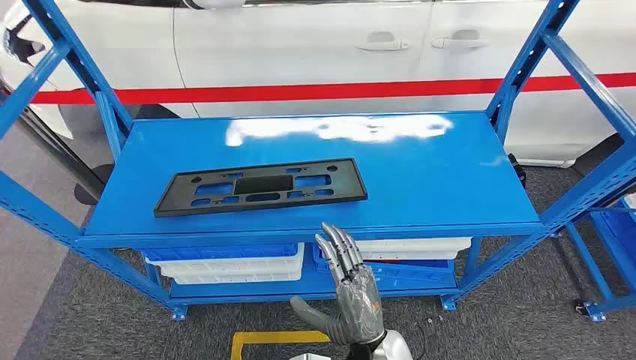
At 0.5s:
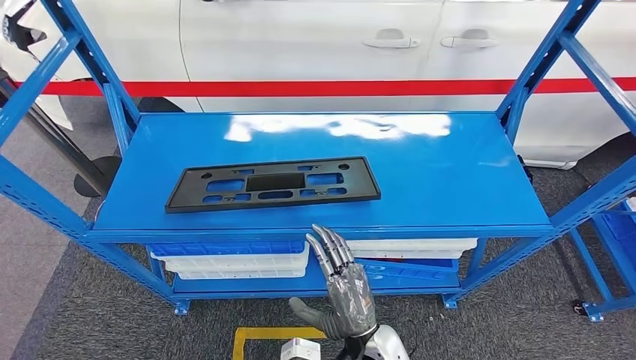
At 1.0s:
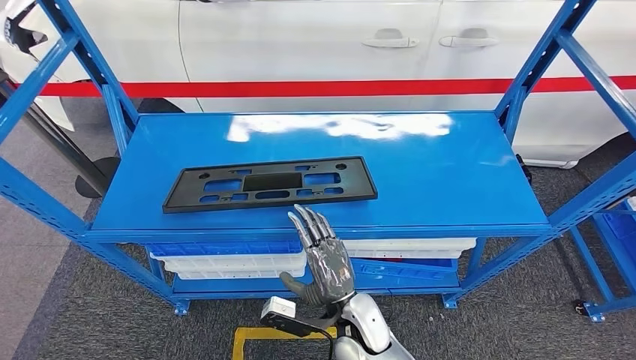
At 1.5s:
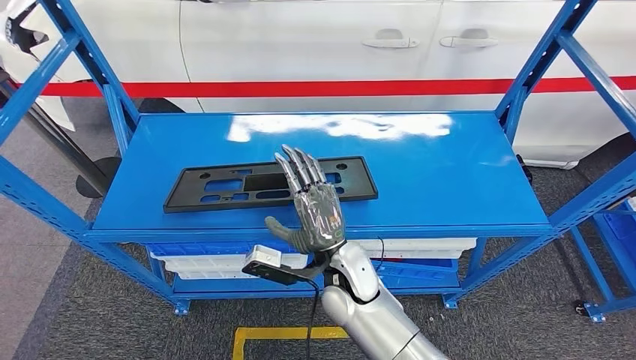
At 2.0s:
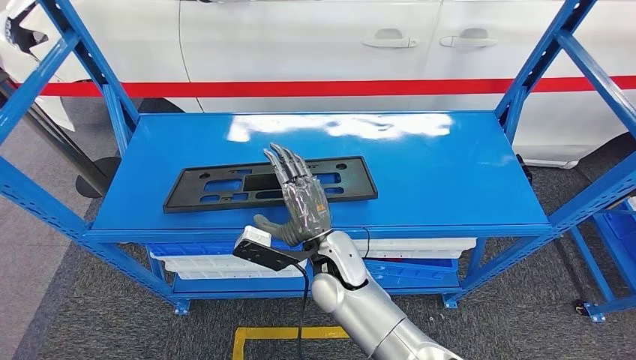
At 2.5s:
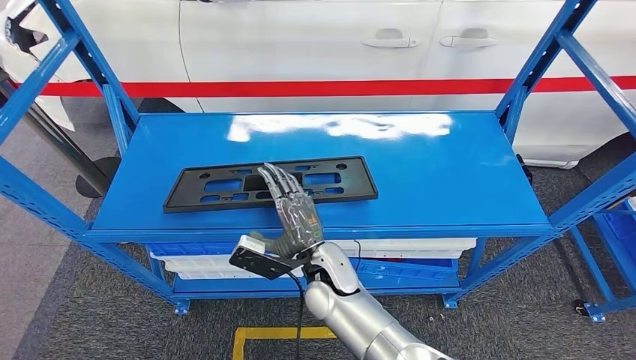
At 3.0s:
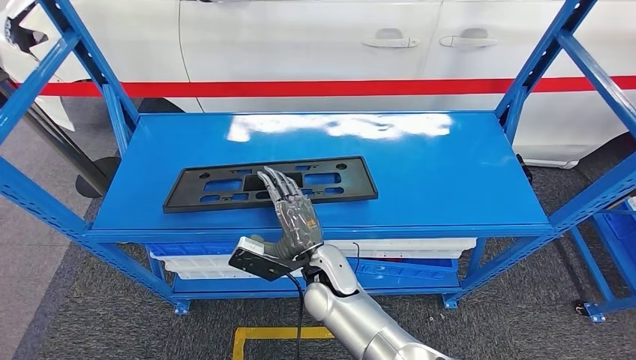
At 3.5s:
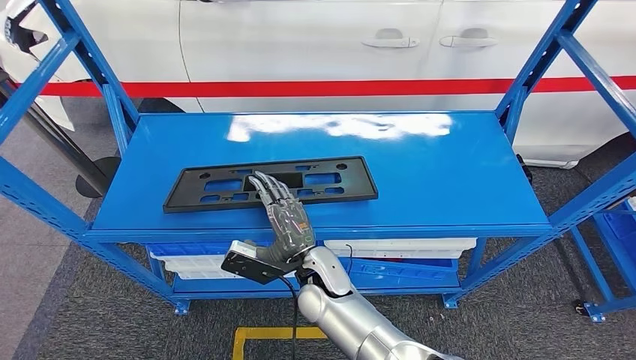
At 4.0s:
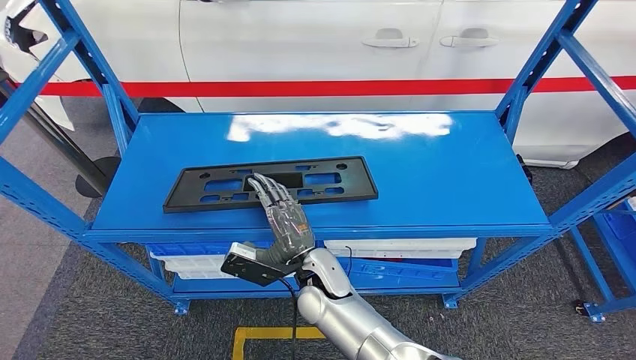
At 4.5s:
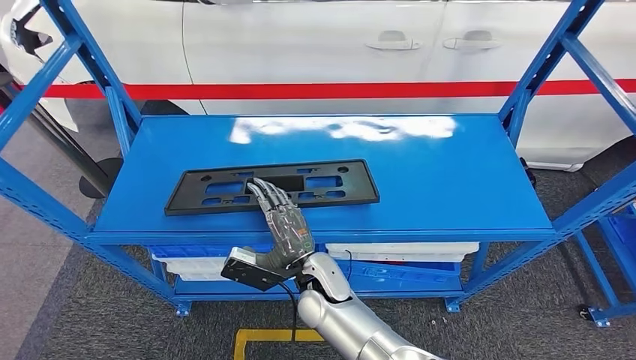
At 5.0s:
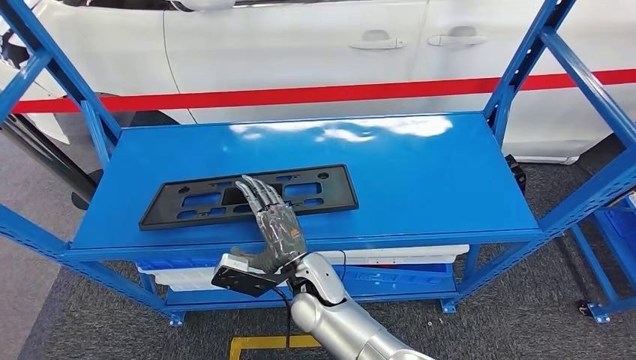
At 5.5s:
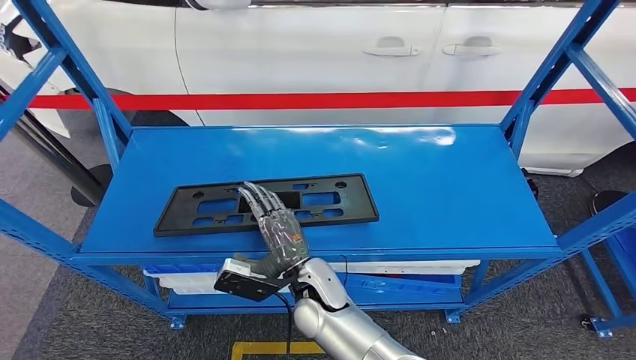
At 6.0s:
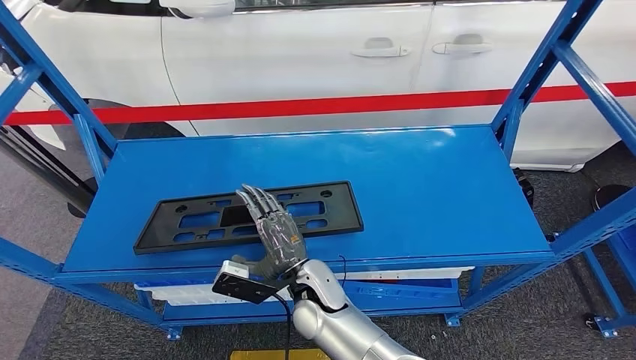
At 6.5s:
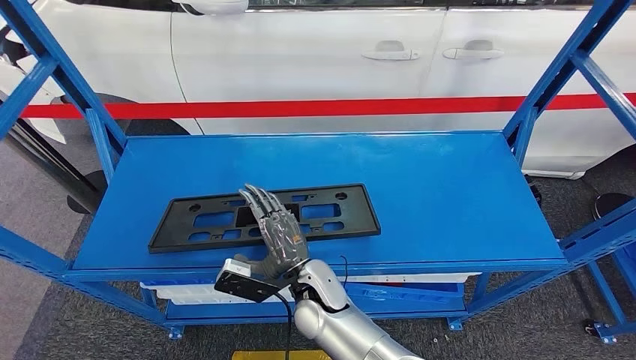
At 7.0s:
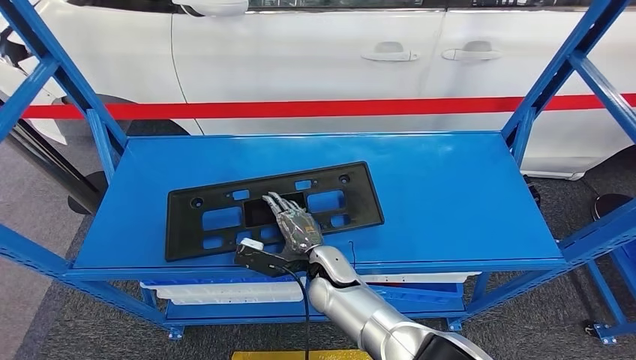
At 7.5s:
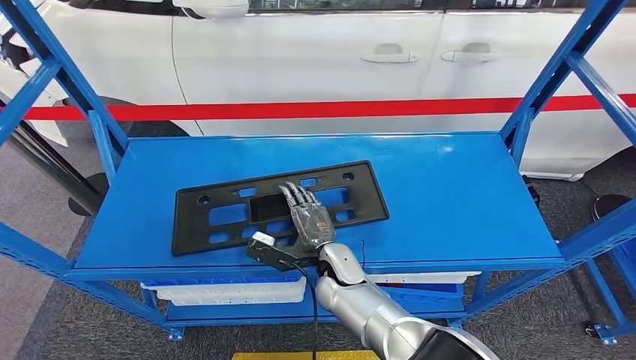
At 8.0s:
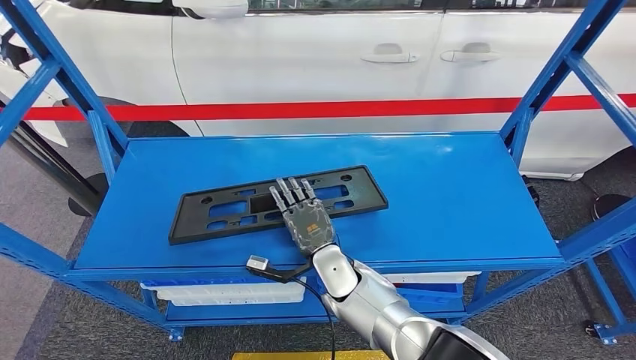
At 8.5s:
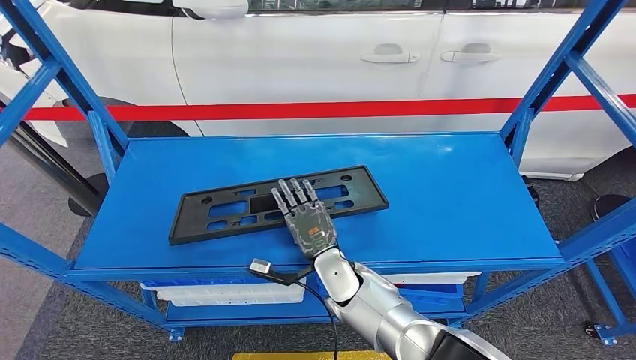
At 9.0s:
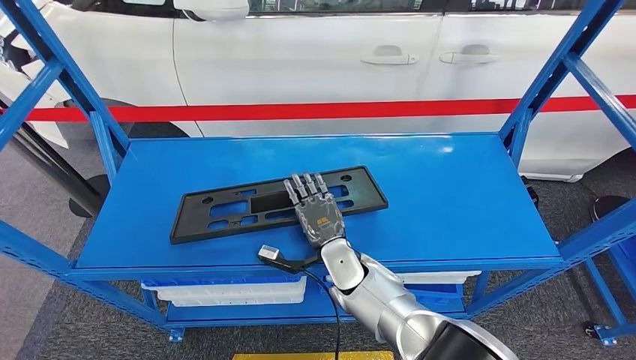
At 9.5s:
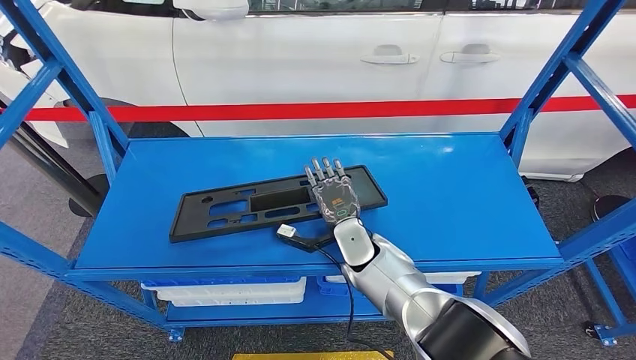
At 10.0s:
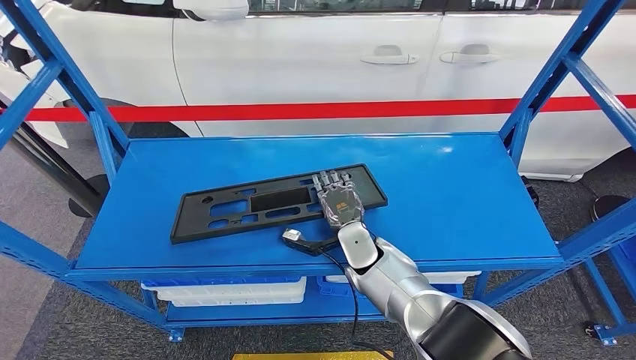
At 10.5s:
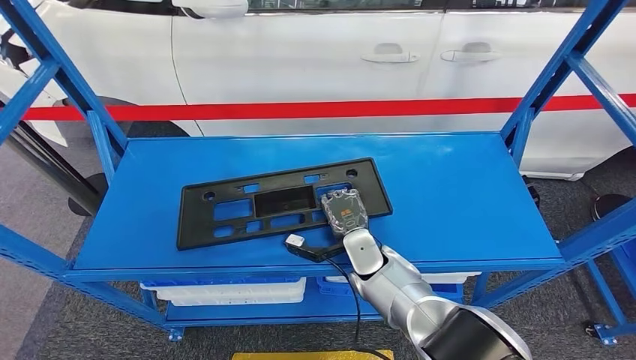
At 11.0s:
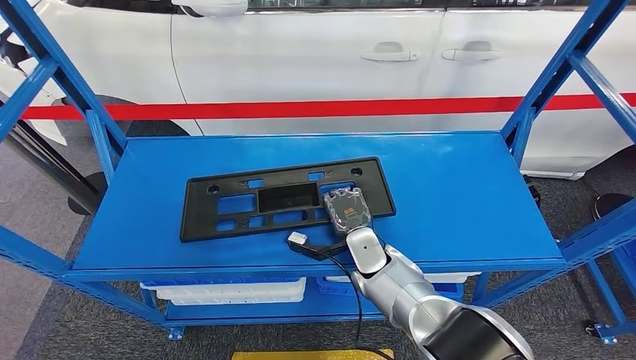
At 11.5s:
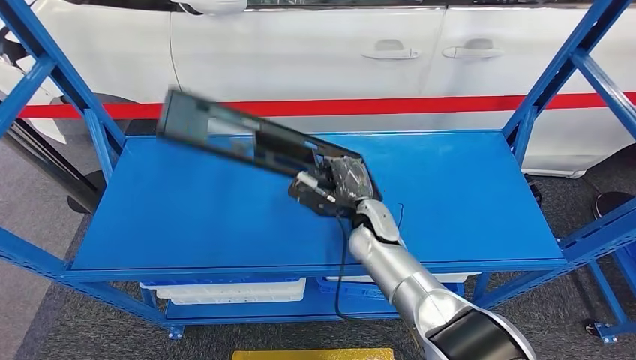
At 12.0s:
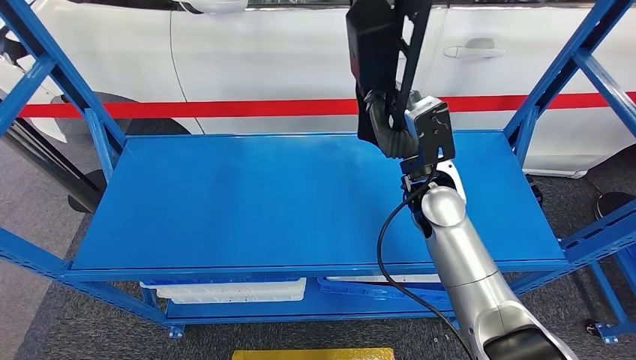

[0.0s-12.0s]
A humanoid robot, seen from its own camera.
2.0s to 4.0s: There are only small adjustments of the hands.
8.0s to 10.0s: The right hand goes roughly 5 cm to the right.

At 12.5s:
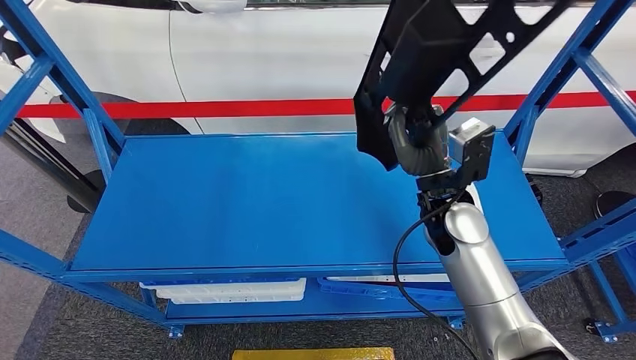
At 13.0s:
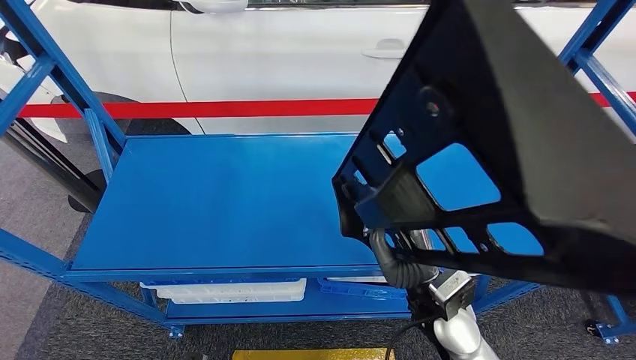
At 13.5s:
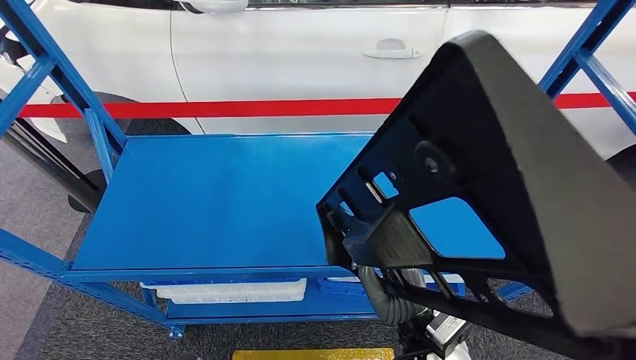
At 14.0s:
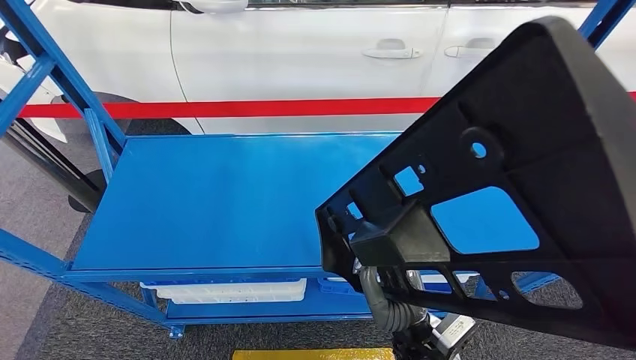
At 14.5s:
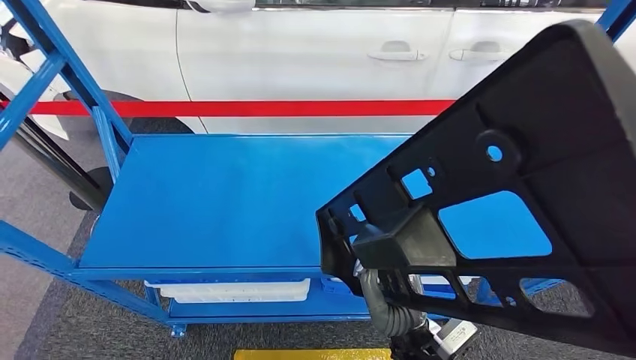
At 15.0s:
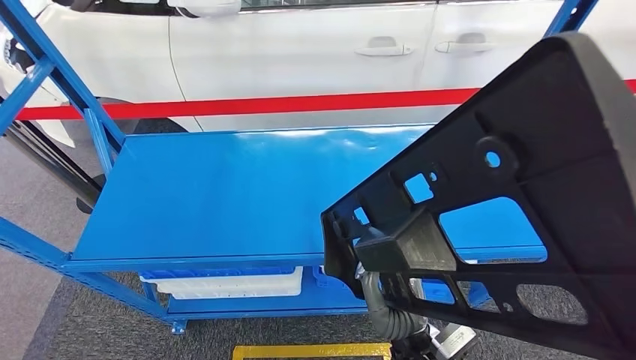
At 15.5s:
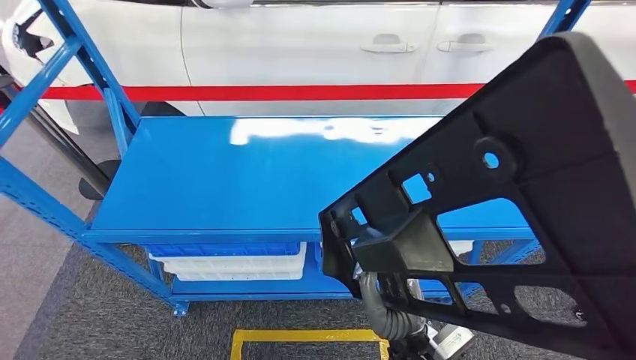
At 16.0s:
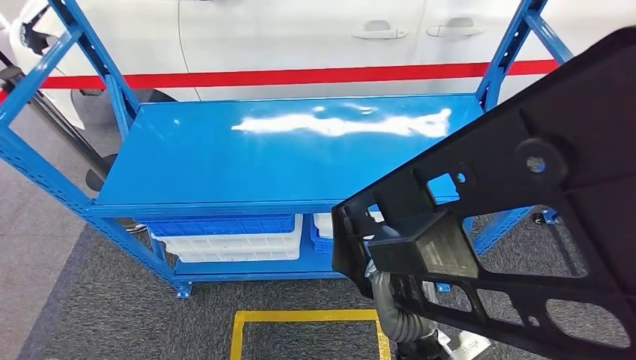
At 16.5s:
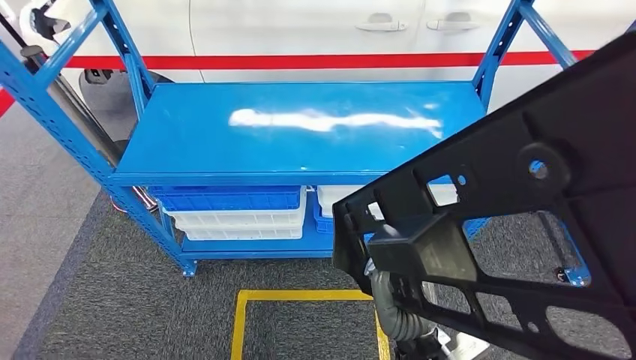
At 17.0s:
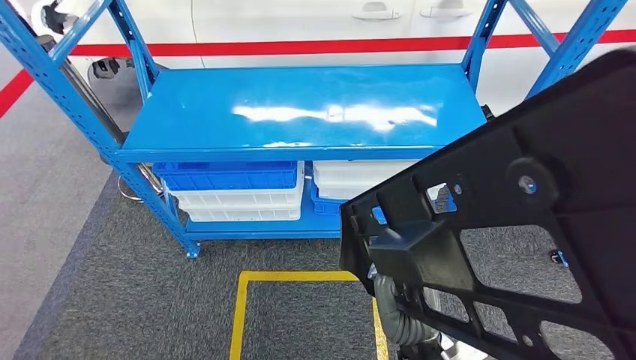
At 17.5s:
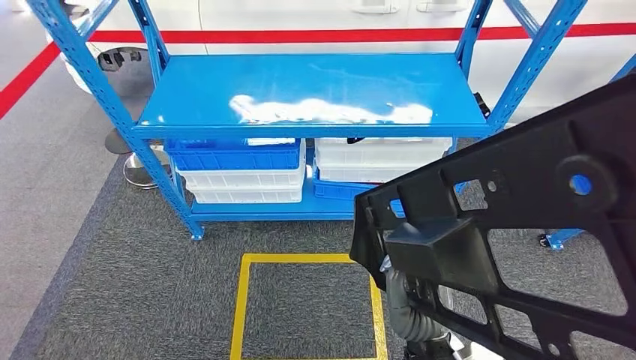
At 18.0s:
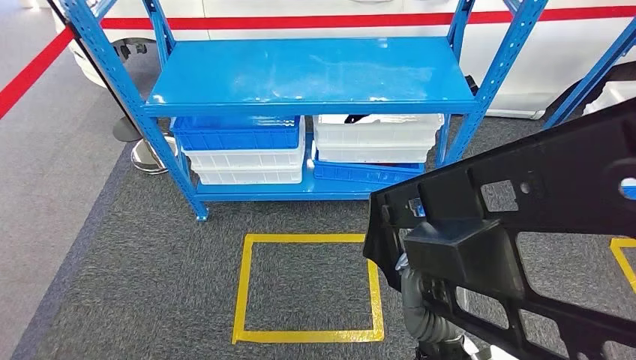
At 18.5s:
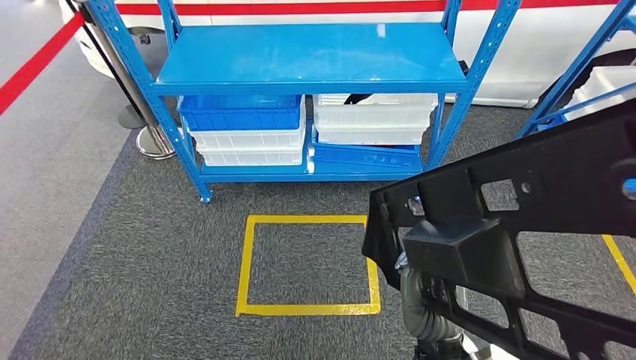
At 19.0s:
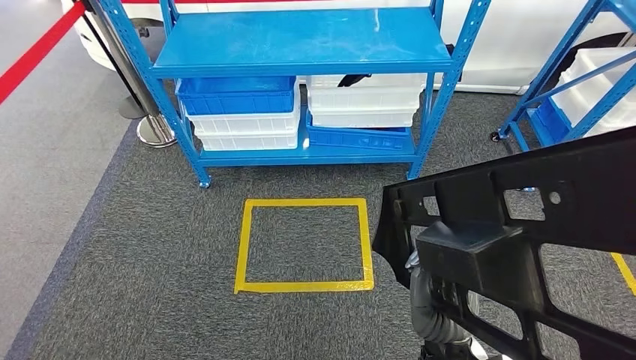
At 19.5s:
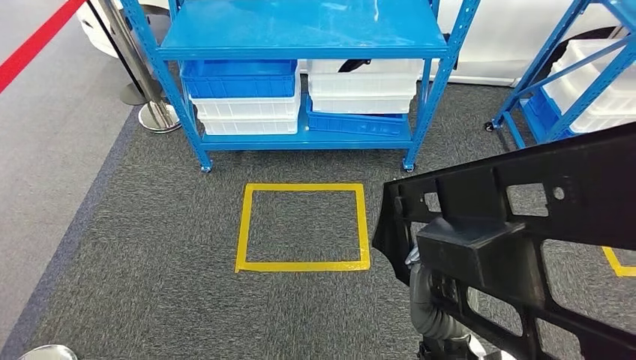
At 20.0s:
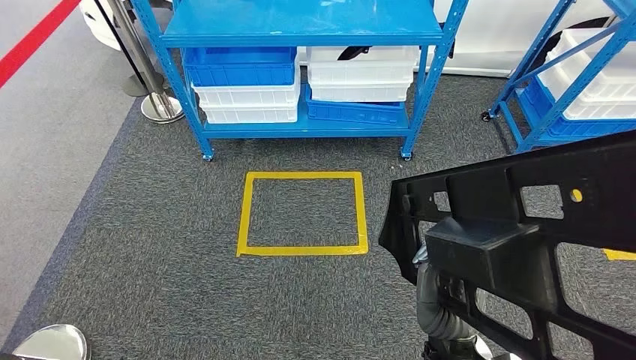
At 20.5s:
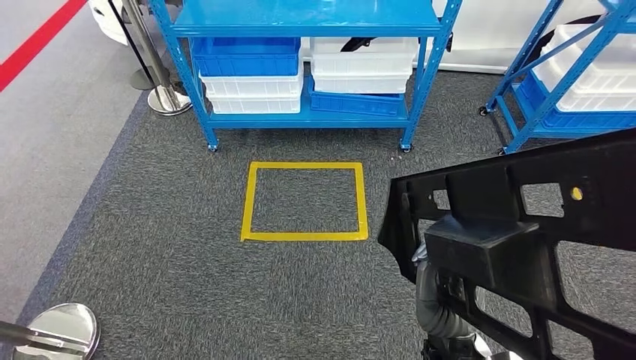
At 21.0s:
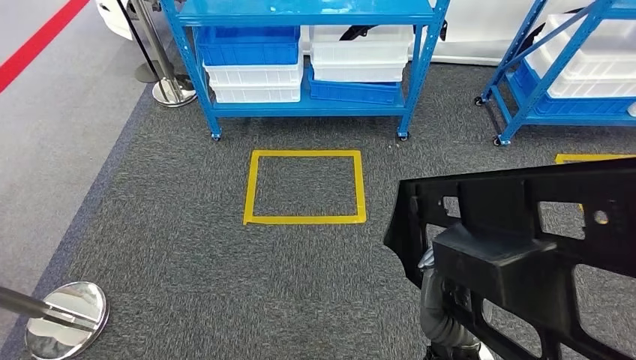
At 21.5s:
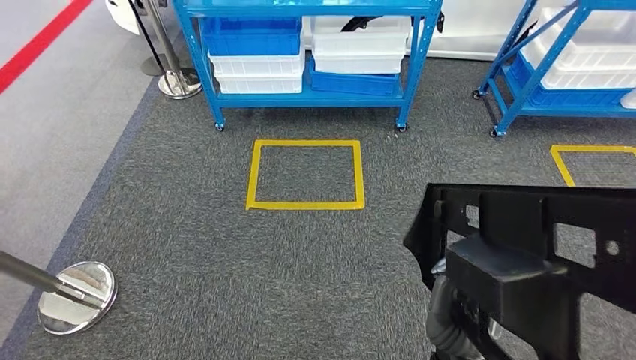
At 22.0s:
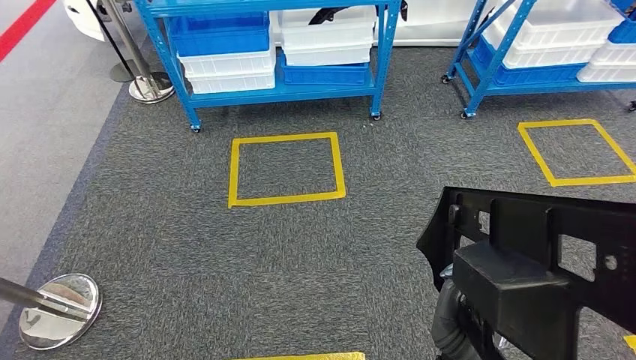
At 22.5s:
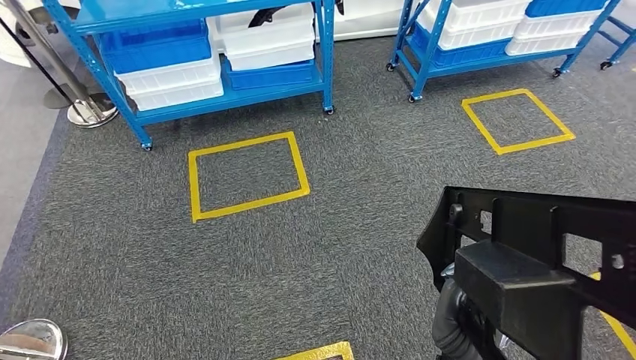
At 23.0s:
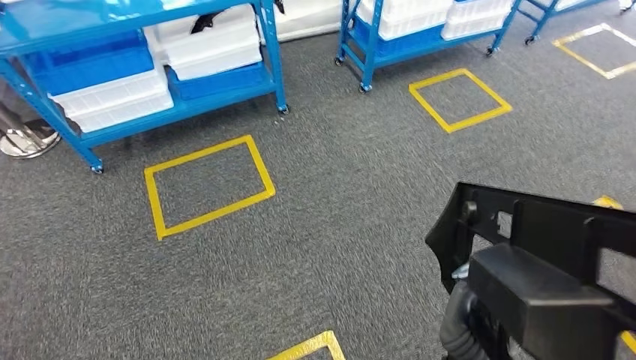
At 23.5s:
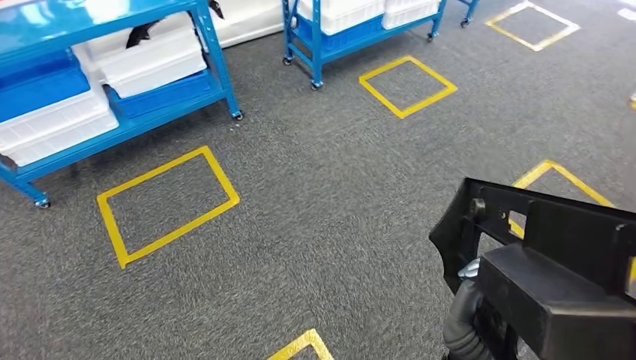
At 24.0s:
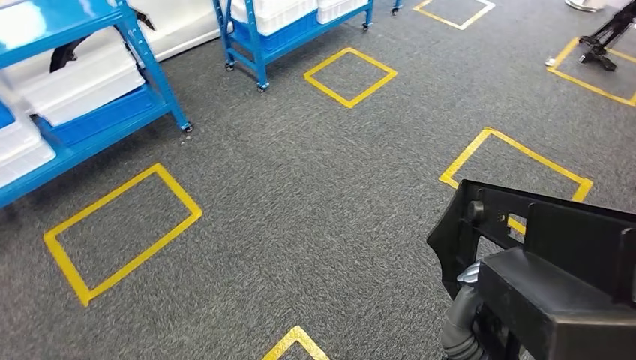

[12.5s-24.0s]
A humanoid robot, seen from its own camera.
Step, 12.5s to 15.5s: Pick up the large material from the shelf.
